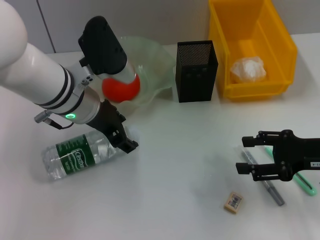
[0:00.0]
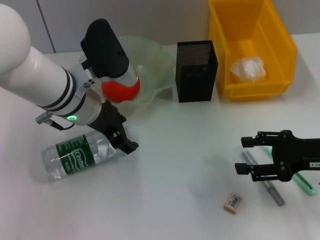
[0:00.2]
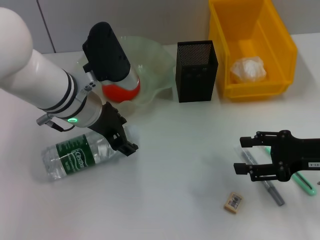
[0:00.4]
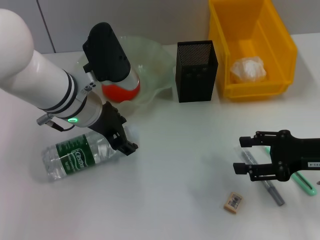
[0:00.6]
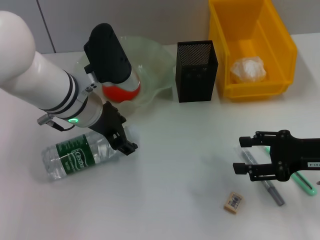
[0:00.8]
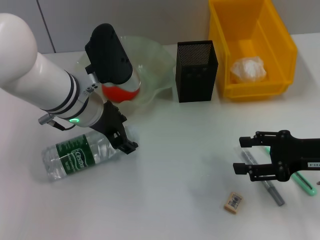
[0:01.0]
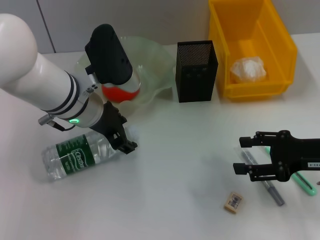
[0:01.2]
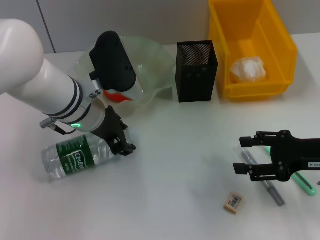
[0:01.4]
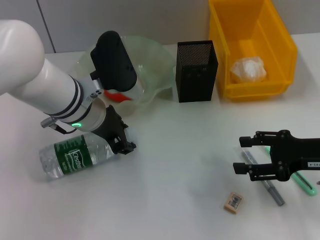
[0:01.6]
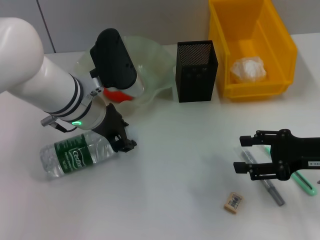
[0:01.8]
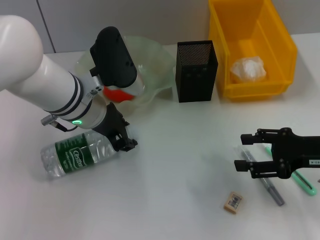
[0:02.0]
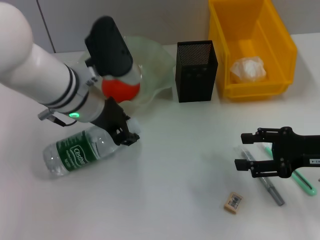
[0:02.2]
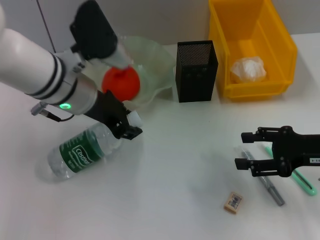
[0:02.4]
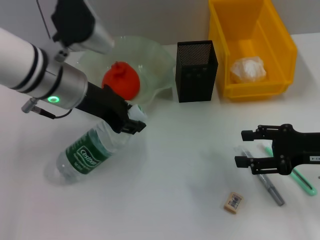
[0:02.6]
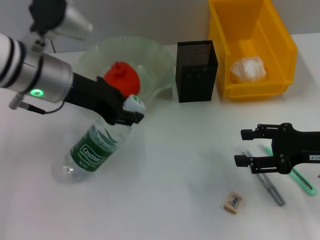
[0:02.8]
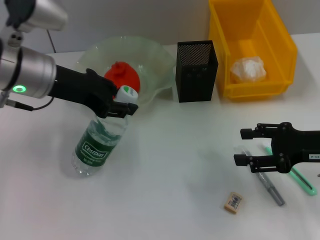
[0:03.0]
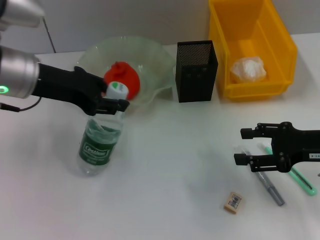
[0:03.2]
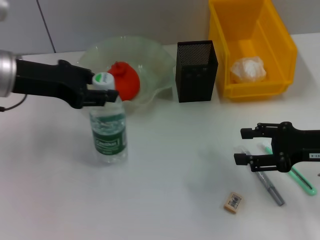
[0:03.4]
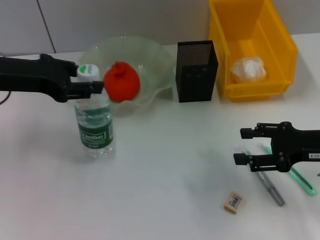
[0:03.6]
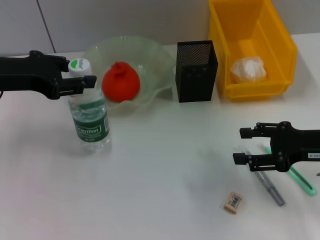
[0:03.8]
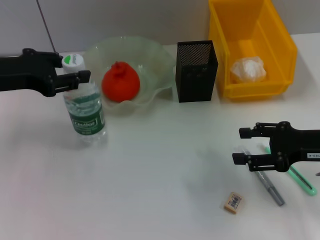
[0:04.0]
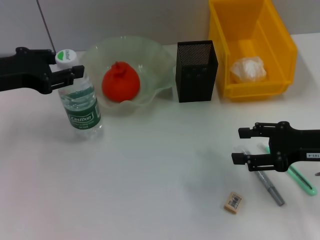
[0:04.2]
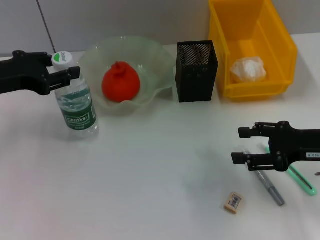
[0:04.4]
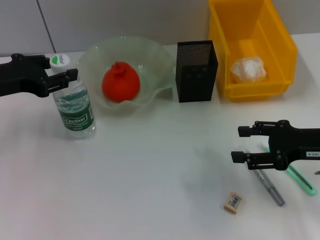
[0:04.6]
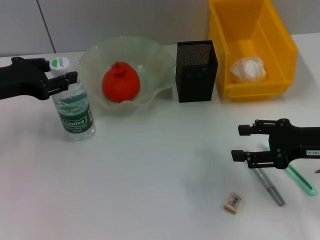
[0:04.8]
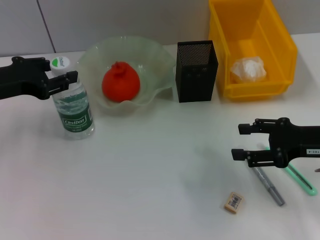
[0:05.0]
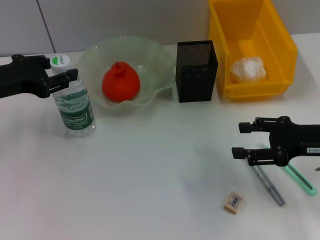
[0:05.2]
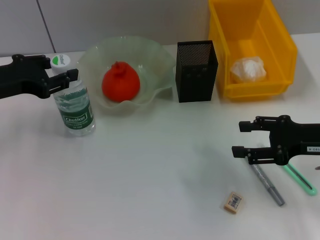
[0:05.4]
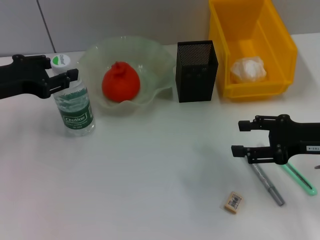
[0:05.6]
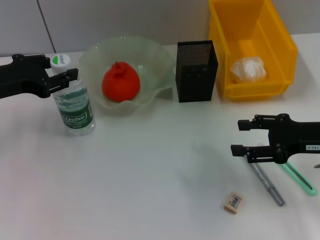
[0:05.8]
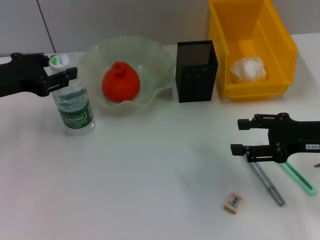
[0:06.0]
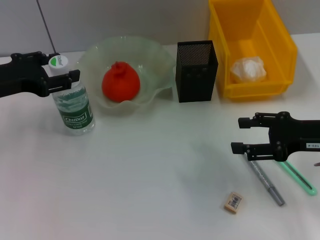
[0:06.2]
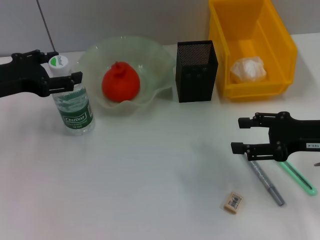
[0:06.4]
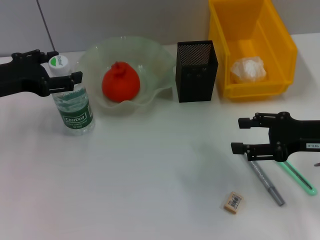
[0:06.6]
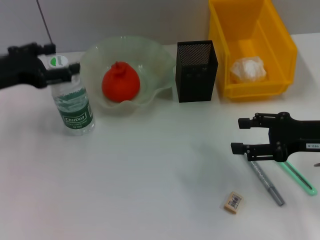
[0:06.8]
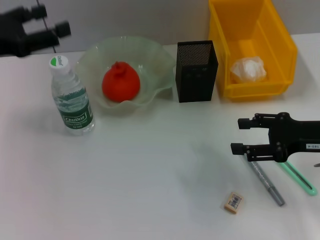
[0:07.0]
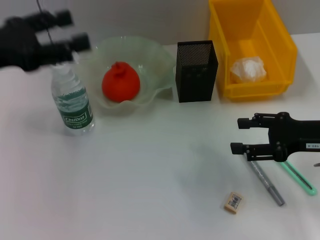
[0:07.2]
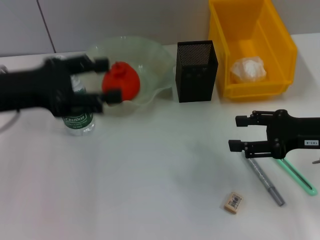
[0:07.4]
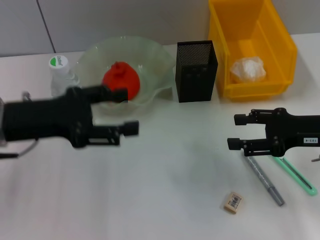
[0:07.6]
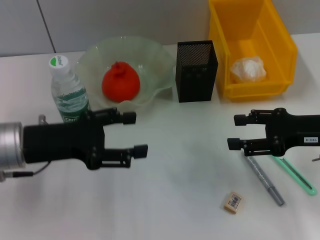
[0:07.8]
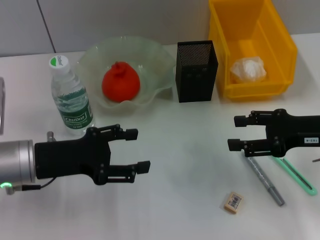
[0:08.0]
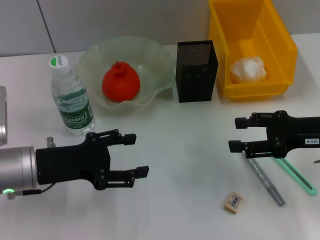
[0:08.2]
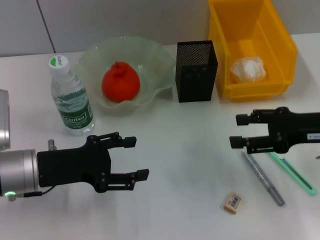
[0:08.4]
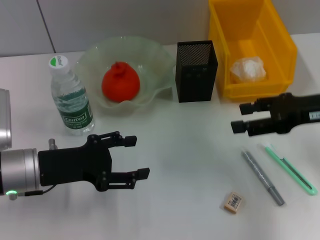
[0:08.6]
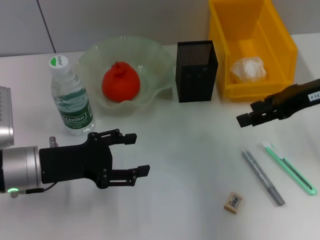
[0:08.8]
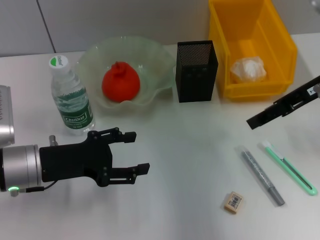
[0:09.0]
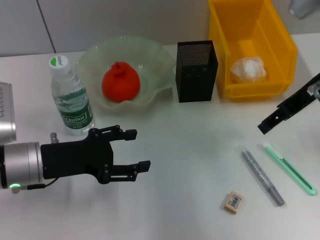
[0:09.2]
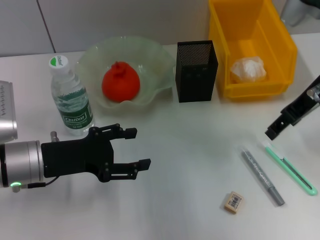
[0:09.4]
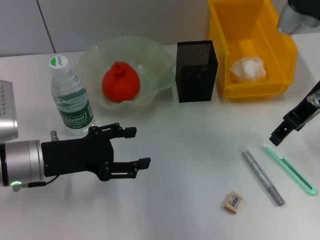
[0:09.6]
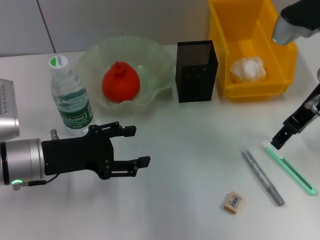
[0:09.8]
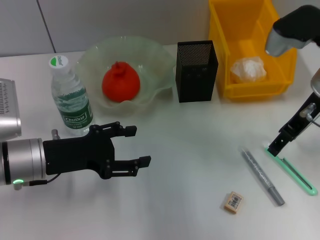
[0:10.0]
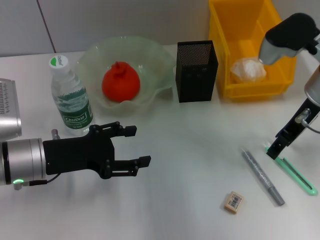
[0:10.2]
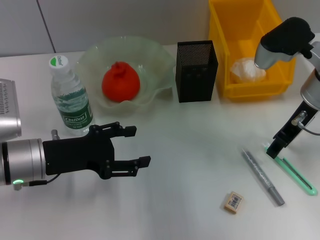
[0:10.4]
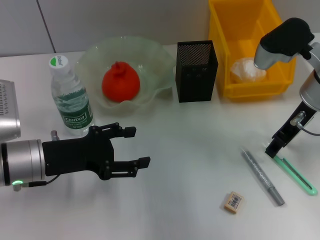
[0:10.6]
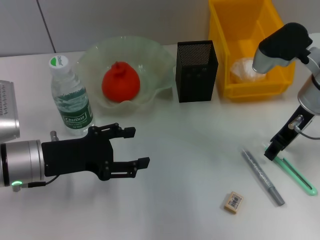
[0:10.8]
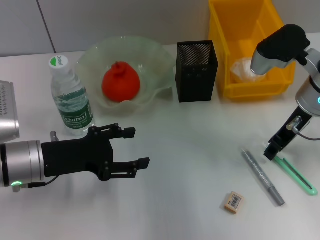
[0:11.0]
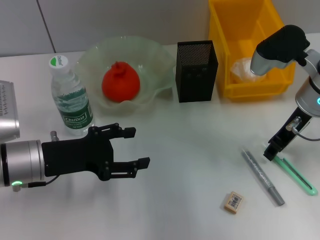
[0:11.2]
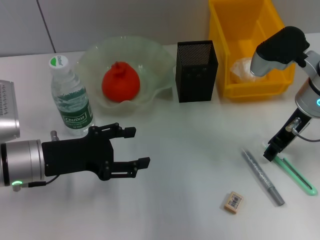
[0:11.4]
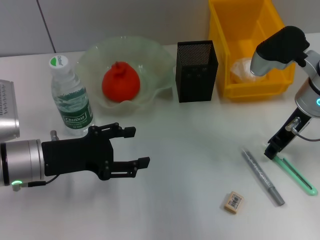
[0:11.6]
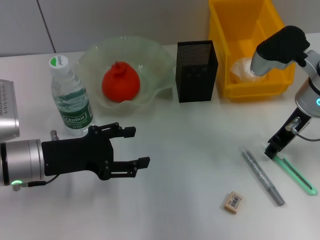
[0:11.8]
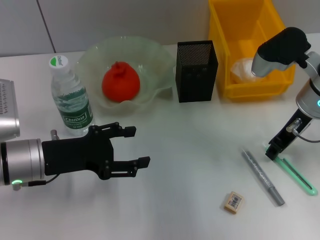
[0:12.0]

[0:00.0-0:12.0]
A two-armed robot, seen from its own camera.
Step, 0:02.0 to 0:06.4: Place the water bottle on the table with the left hand.
0:00.0 to 0:01.6: There are only small adjustments of the grippers.
0:01.6 to 0:03.0: The left gripper heads to the left and upward, covering some 10 cm.
0:03.0 to 0:04.4: The left gripper heads to the left, covering some 10 cm.
0:04.4 to 0:06.0: The grippers make only small movements.
0:06.0 to 0:07.6: The left gripper is displaced backward by some 5 cm, and opens.
0:07.6 to 0:09.0: The right gripper is displaced upward and forward by about 10 cm. Meanwhile the left gripper heads downward, covering some 5 cm.
0:09.0 to 0:10.4: The right gripper moves downward, approximately 5 cm.
0:10.4 to 0:12.0: The right gripper closes up.

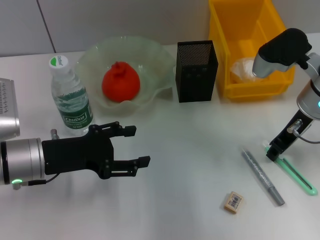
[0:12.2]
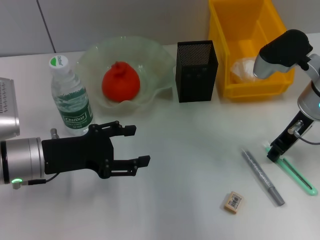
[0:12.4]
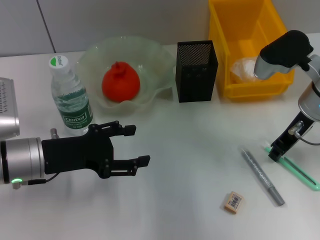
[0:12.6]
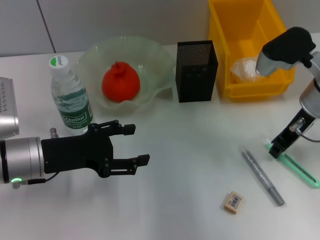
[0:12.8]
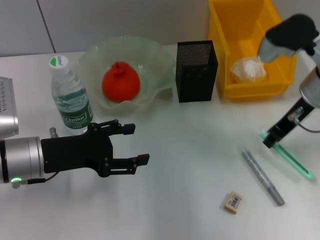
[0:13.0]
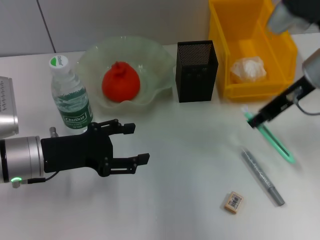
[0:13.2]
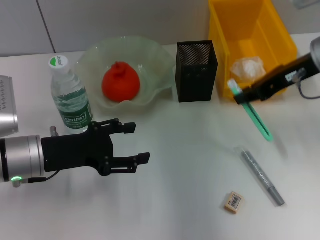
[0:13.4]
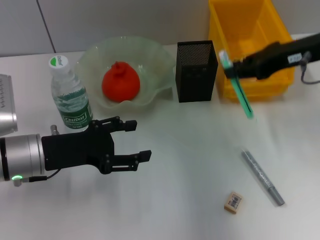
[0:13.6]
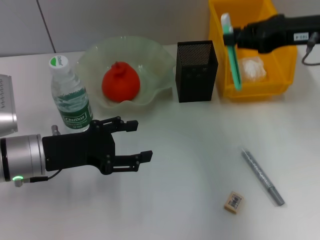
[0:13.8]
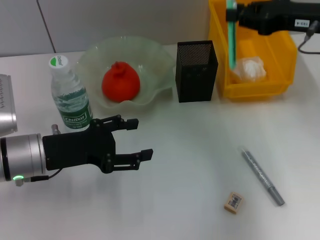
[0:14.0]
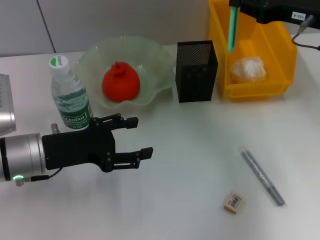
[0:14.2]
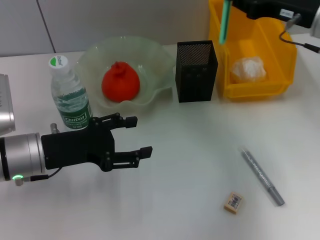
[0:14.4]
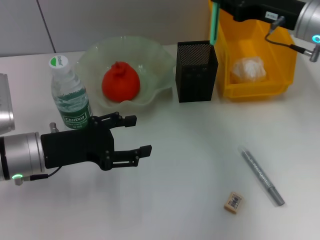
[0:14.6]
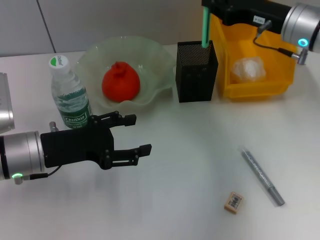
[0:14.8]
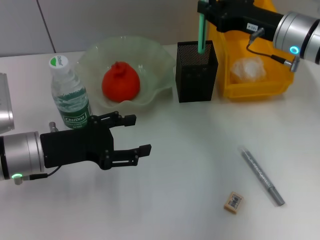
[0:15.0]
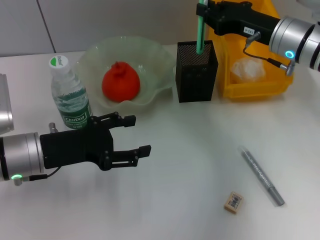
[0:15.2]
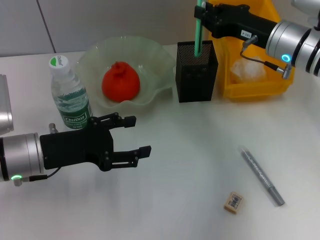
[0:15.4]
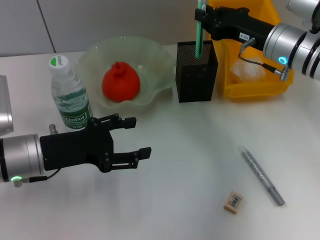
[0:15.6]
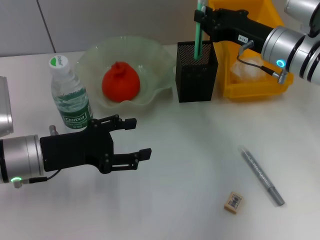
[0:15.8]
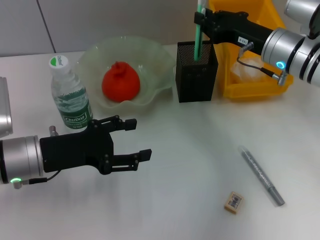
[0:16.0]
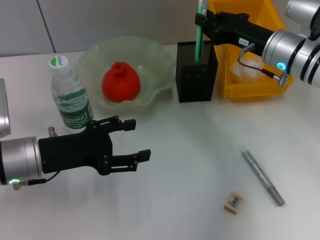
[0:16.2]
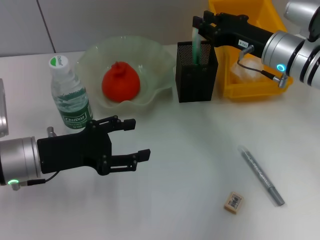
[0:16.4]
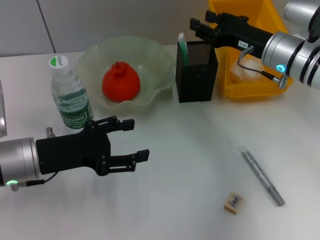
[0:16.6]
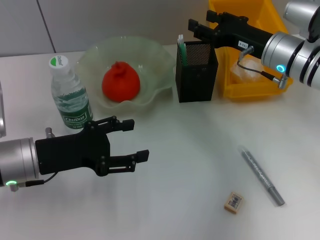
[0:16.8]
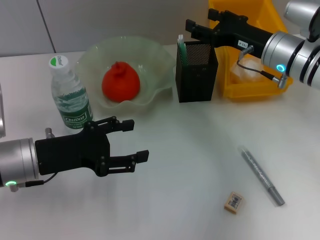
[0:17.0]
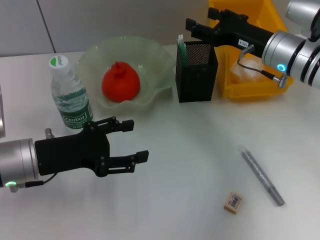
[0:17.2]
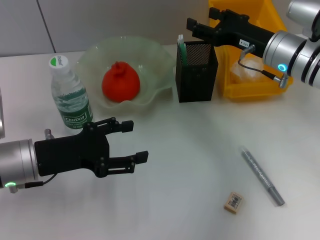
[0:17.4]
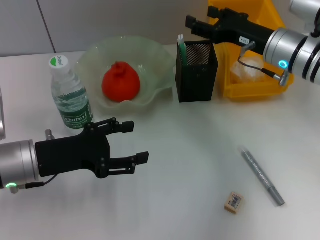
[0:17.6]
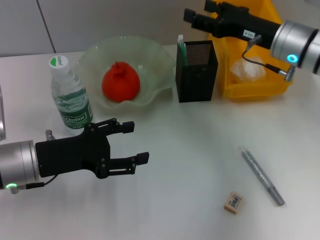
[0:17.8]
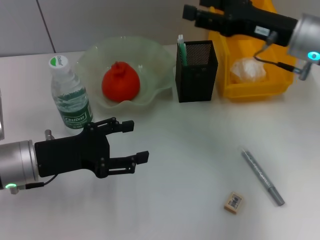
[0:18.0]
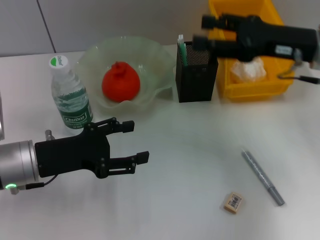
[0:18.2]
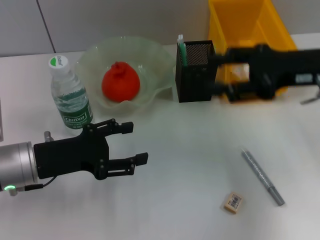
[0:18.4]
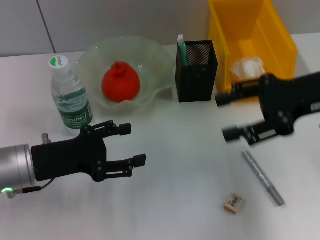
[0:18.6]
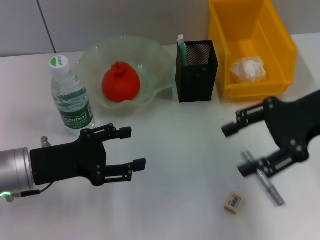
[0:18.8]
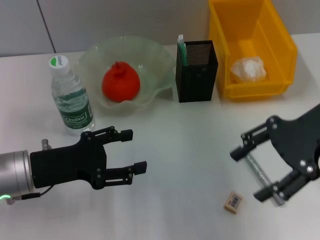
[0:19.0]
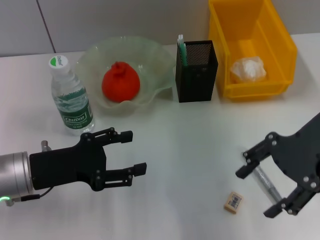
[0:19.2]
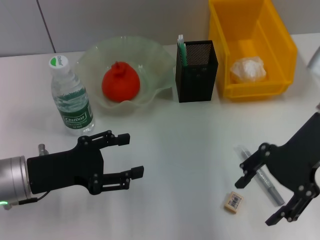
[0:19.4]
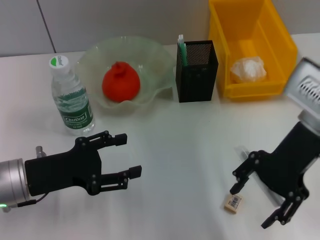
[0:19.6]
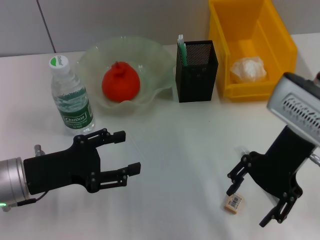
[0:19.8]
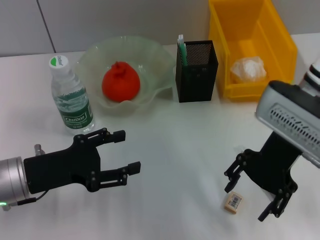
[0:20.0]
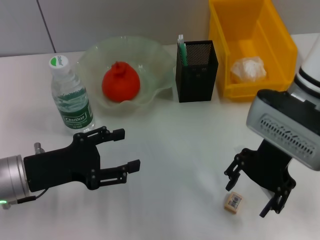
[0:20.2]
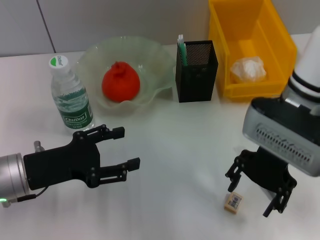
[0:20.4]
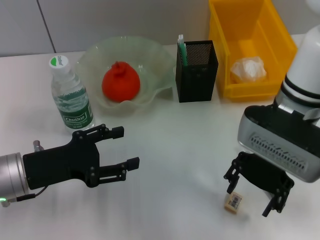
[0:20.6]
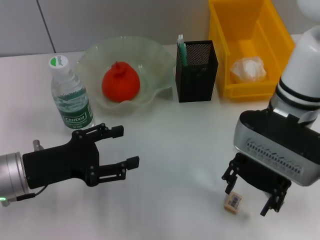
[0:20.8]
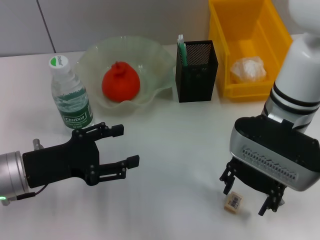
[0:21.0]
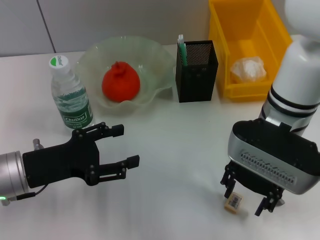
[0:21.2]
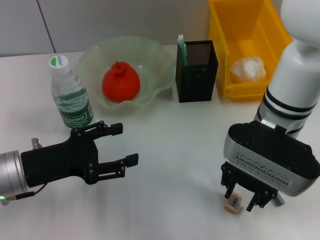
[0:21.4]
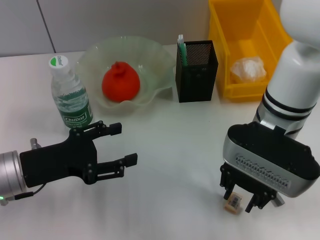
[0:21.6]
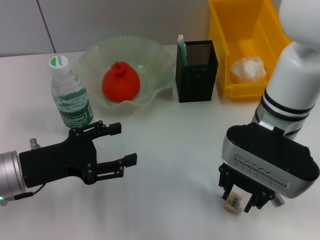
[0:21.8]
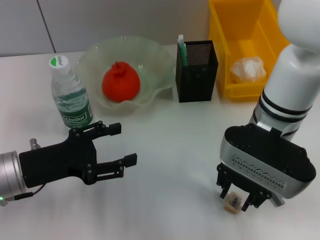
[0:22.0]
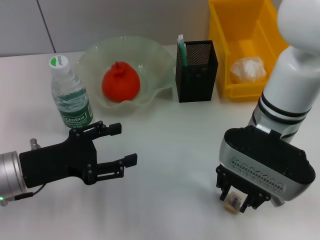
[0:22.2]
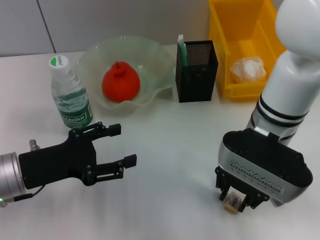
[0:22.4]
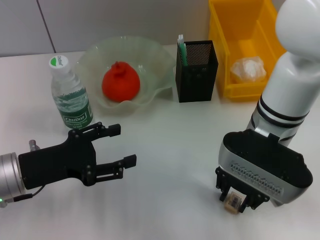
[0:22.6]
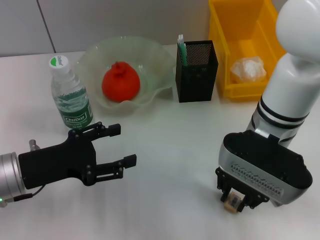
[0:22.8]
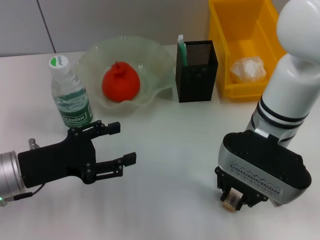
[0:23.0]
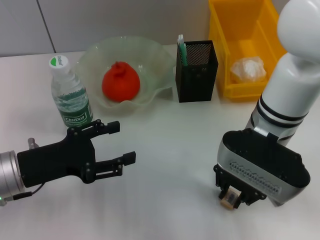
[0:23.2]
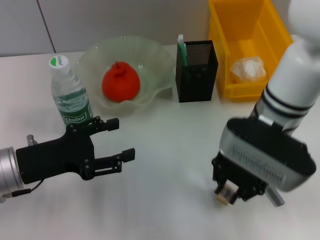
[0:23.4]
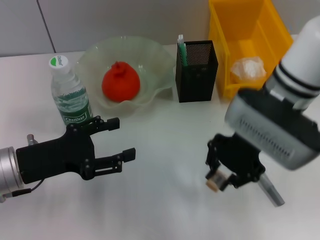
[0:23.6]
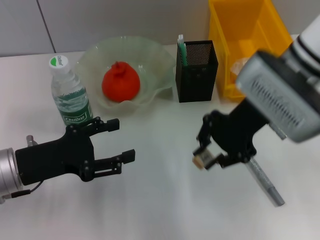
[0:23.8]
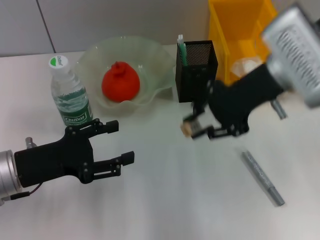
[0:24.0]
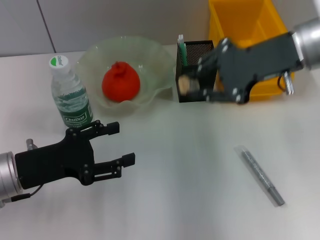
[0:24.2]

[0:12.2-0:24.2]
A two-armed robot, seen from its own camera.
Step, 0:12.8 to 0:16.6: Place the blue utility knife into the pen holder with the right hand.
Step, 0:16.8 to 0:22.8: Grab the eraser with the right hand.
0:12.2 to 0:13.8: The right gripper shifts roughly 10 cm upward.
0:13.8 to 0:15.2: The right gripper goes about 10 cm downward.
0:15.2 to 0:16.6: The grippers stay close to where they were, moving slightly.
0:16.6 to 0:18.2: The right gripper is displaced upward and backward by approximately 10 cm, and opens up.
0:18.2 to 0:19.8: The right gripper goes approximately 5 cm to the left.
0:19.8 to 0:21.2: The right gripper heads to the left, covering some 5 cm.
0:21.2 to 0:22.6: The right gripper closes its fingers.
0:22.6 to 0:24.2: The right gripper shifts approximately 15 cm upward and to the right.
